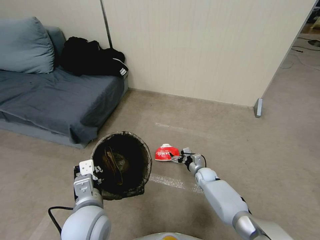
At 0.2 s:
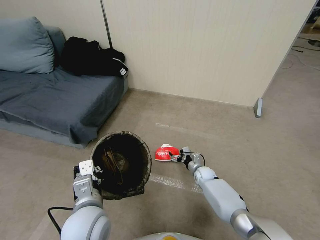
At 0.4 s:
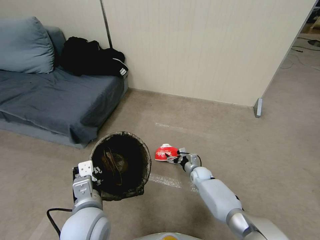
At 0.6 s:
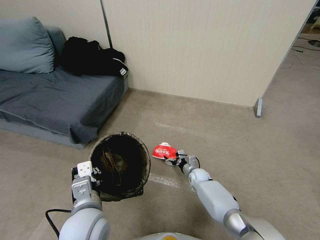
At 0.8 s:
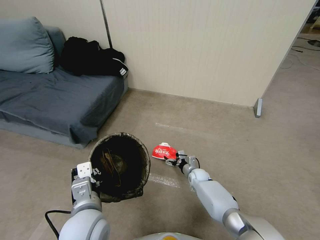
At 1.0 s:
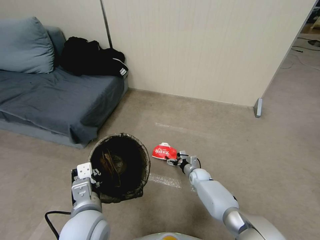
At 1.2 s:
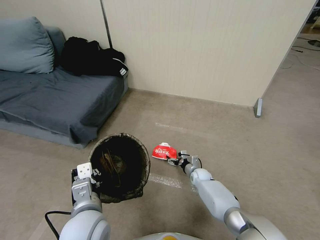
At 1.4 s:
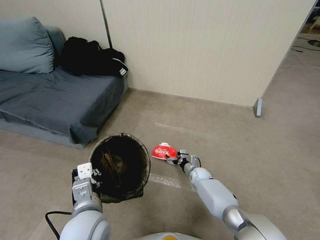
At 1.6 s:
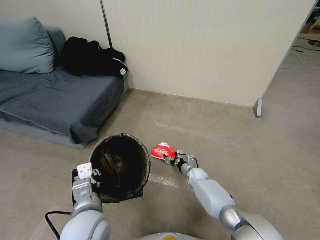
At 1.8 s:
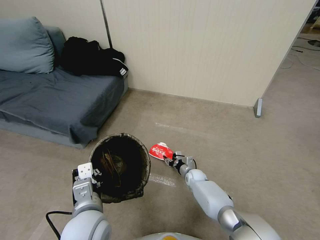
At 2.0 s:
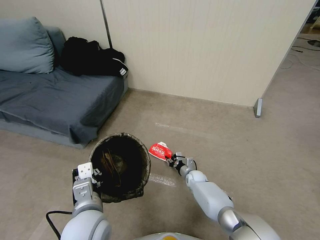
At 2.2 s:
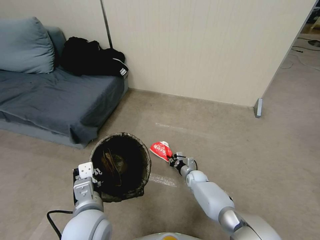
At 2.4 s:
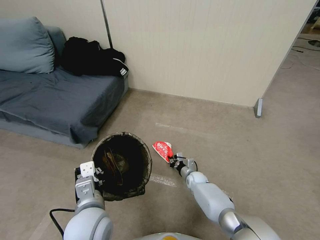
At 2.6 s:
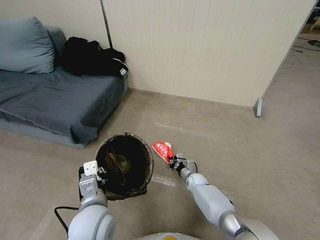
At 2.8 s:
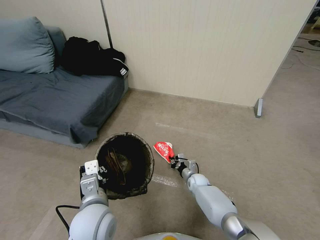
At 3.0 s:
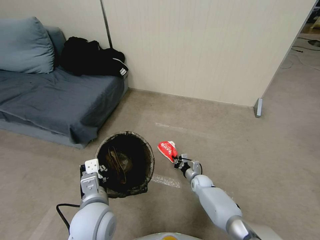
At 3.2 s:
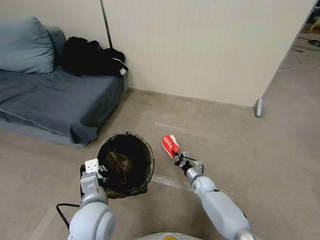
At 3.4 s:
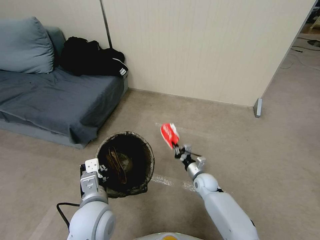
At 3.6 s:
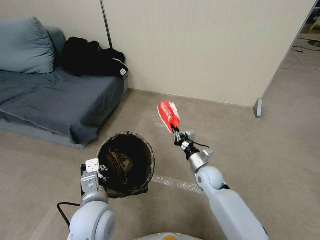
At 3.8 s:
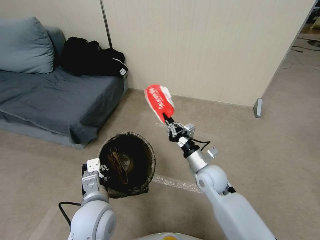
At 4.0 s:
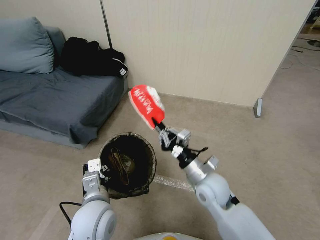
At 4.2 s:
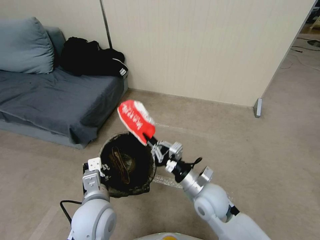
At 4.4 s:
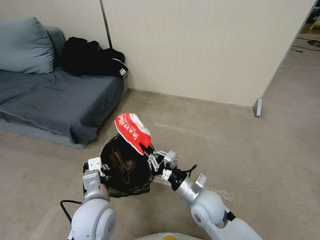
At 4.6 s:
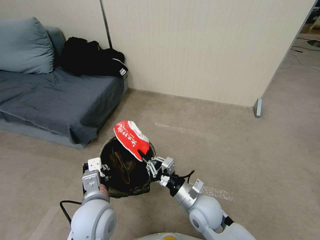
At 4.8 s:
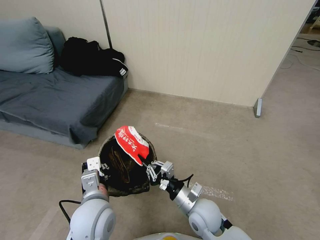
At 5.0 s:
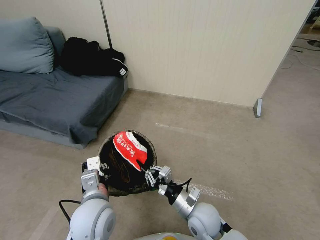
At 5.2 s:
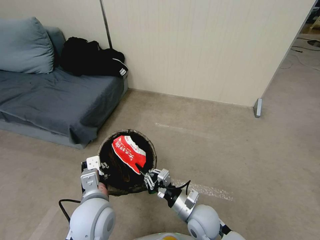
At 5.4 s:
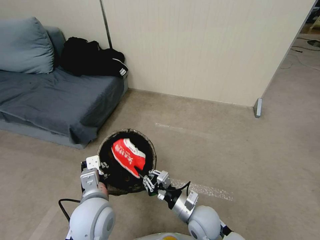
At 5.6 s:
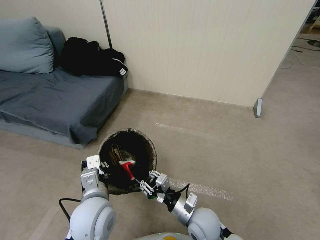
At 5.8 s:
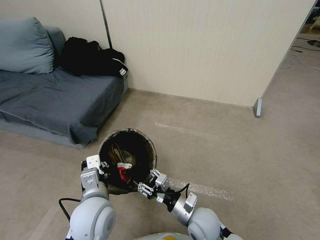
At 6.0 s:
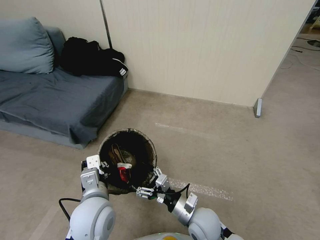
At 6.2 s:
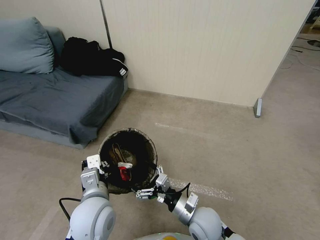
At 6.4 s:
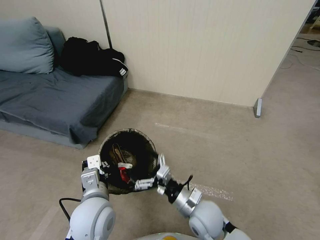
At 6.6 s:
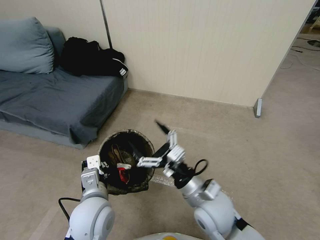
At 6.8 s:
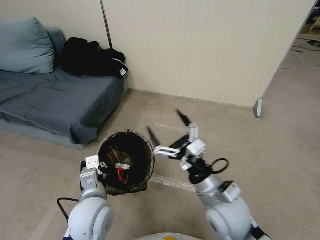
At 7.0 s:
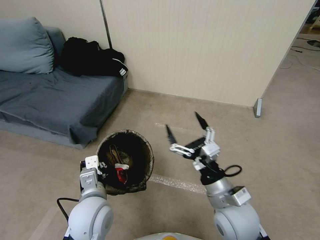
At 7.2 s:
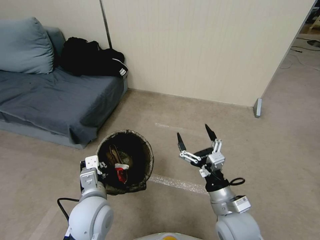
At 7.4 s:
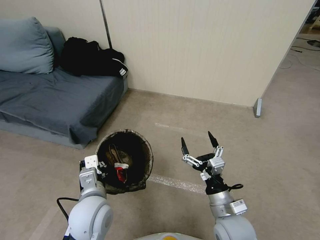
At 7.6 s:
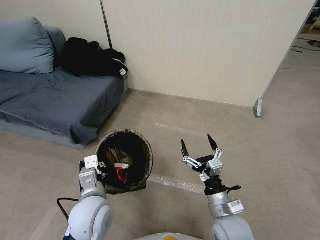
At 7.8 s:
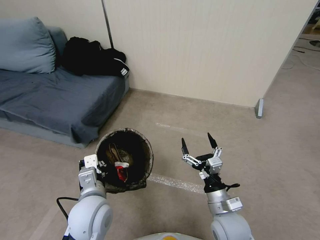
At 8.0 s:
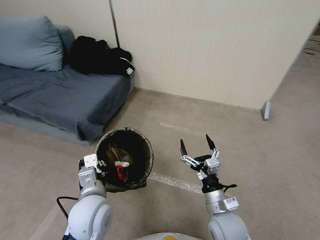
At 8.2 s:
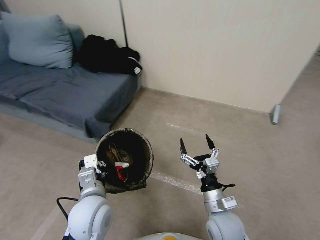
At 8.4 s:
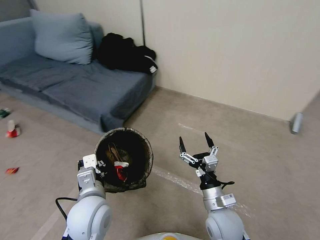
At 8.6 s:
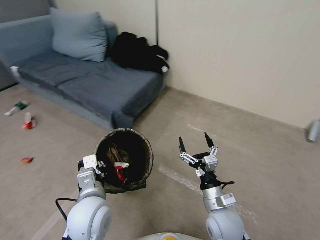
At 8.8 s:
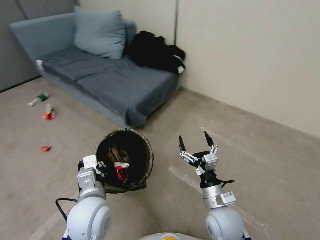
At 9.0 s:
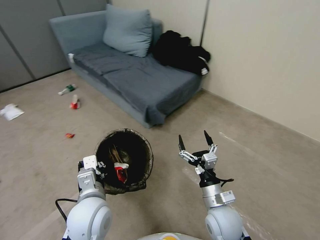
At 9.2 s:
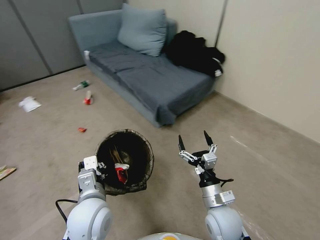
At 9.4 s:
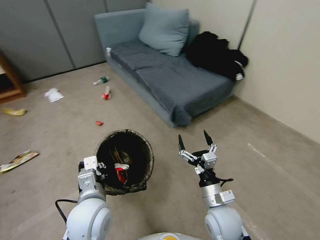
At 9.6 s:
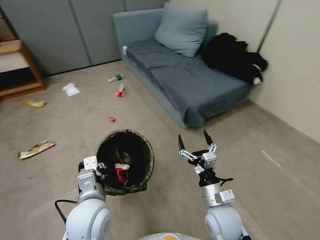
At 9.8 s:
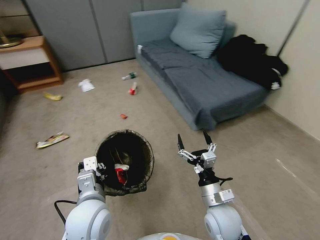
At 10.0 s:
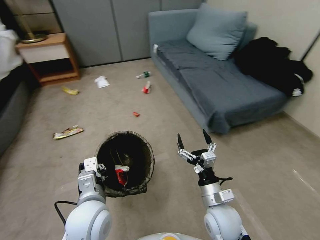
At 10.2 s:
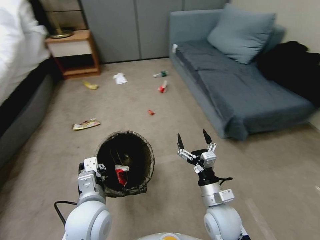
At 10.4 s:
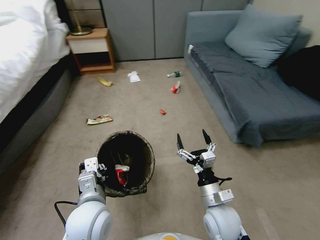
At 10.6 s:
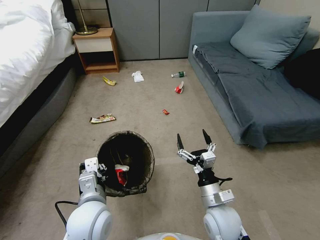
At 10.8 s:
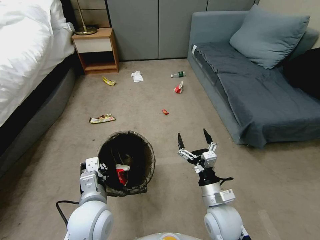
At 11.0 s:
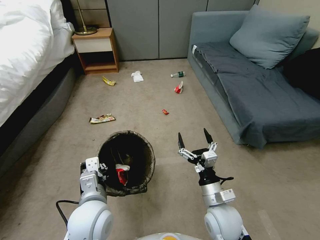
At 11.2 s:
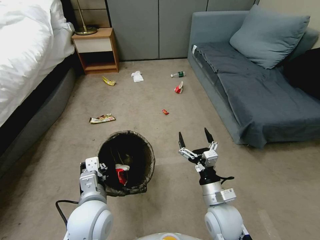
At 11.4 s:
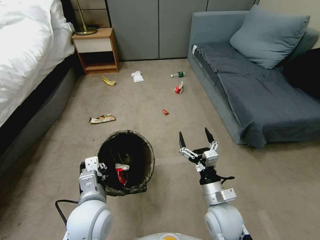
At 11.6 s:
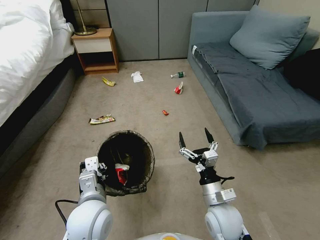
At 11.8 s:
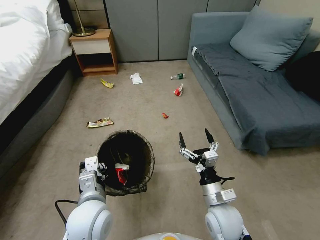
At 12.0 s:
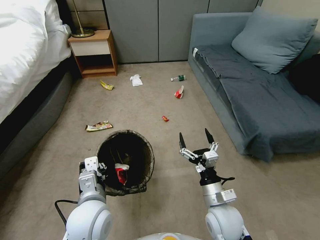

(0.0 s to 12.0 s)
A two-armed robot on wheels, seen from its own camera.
Task of the whole recording: Pick up the trash bin, then pick up the garbage from the floor and place it into the trash bin.
0.0 s - 1.6 s: The grippers move only a little.
1.6 s - 3.0 s: The right gripper closes.
3.0 s - 4.4 s: The right gripper is displaced upward and backward by roughly 30 cm.
4.4 s - 6.0 s: The right gripper is displaced downward by roughly 5 cm, and opens its fingers.
6.0 s - 7.6 s: The right gripper heads to the right, covering about 5 cm, and travels upward and back again, some 15 cm each way.
10.4 s - 12.0 s: Both grippers stay put.

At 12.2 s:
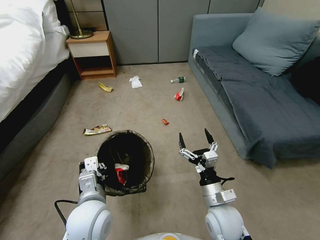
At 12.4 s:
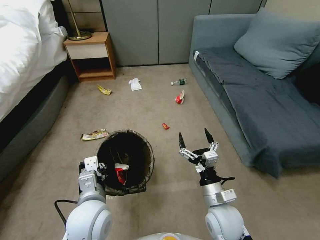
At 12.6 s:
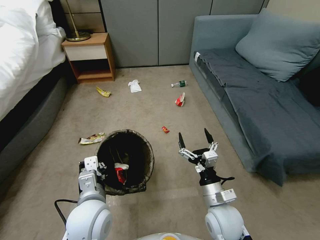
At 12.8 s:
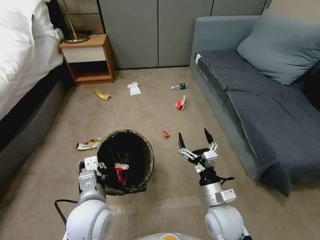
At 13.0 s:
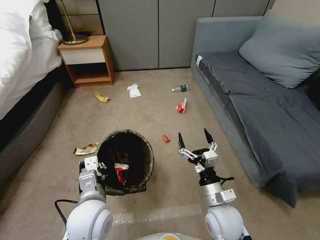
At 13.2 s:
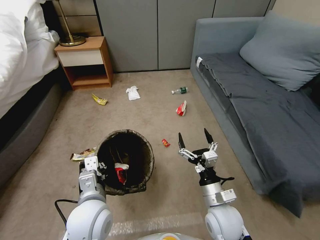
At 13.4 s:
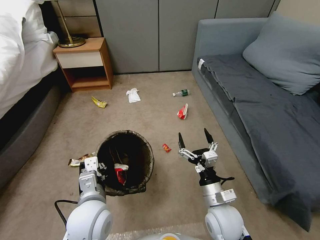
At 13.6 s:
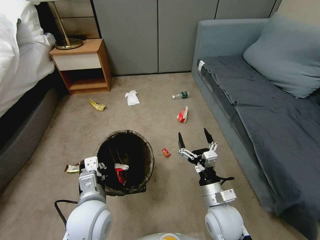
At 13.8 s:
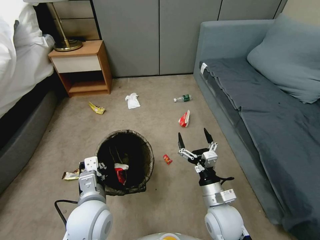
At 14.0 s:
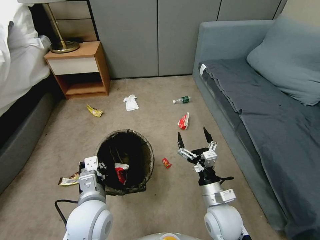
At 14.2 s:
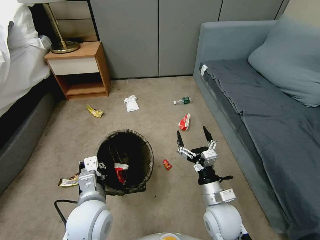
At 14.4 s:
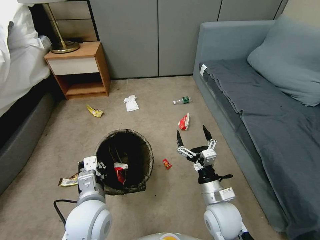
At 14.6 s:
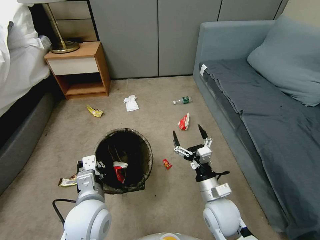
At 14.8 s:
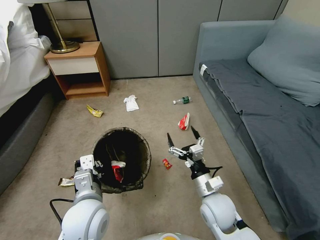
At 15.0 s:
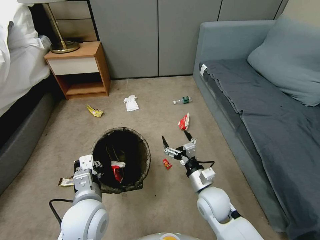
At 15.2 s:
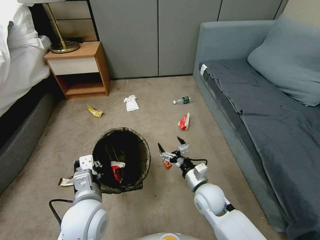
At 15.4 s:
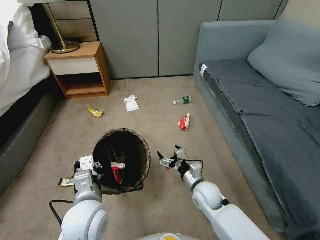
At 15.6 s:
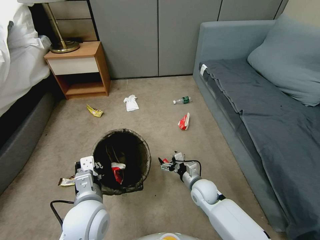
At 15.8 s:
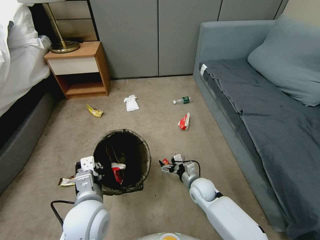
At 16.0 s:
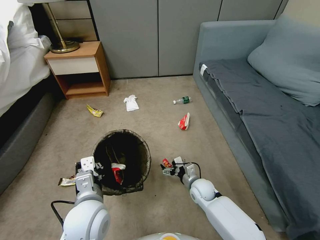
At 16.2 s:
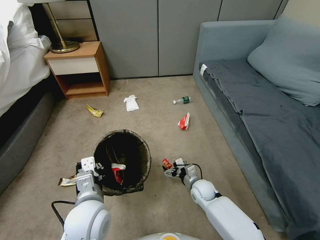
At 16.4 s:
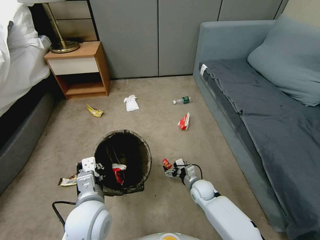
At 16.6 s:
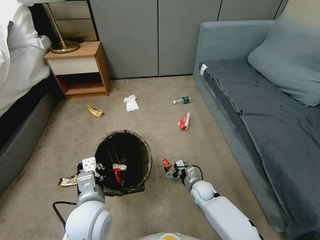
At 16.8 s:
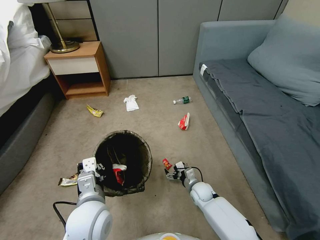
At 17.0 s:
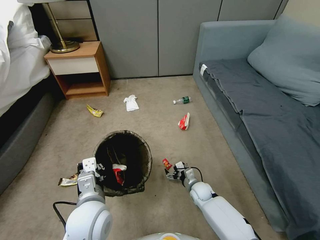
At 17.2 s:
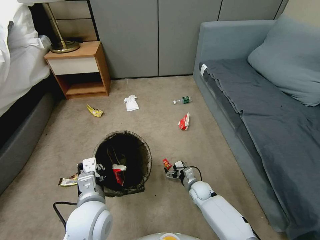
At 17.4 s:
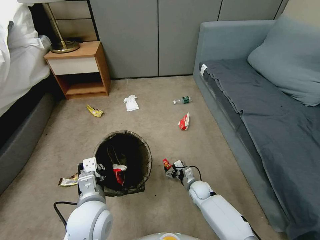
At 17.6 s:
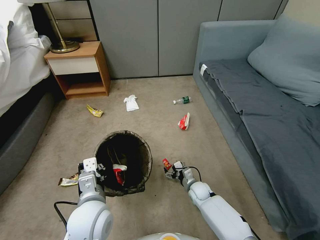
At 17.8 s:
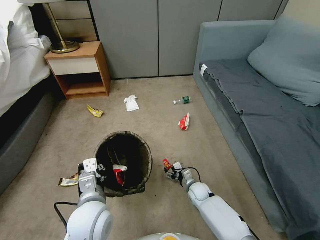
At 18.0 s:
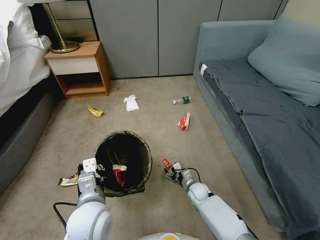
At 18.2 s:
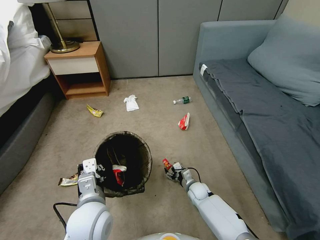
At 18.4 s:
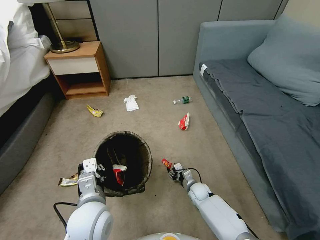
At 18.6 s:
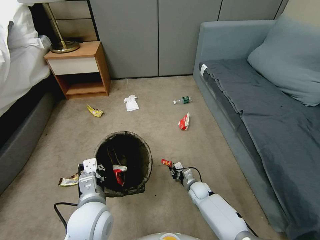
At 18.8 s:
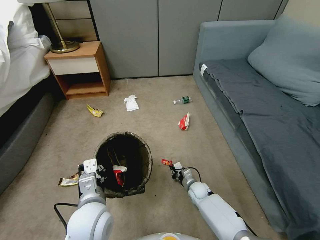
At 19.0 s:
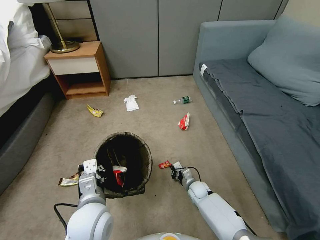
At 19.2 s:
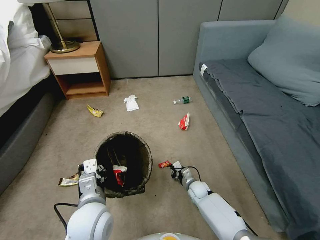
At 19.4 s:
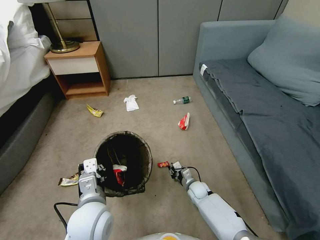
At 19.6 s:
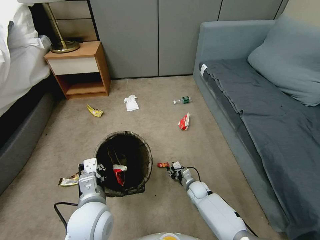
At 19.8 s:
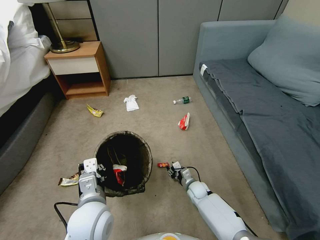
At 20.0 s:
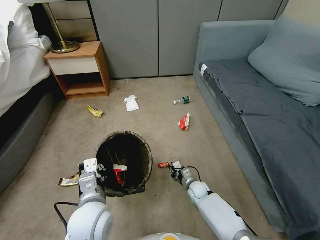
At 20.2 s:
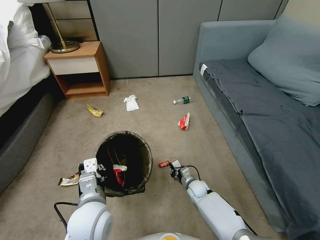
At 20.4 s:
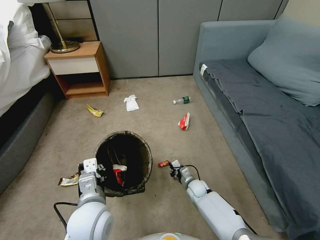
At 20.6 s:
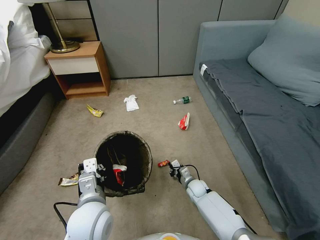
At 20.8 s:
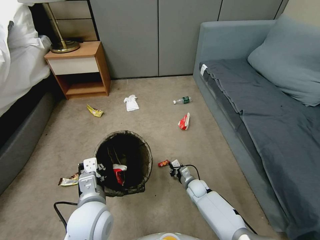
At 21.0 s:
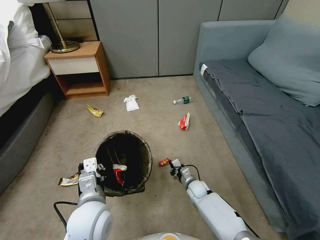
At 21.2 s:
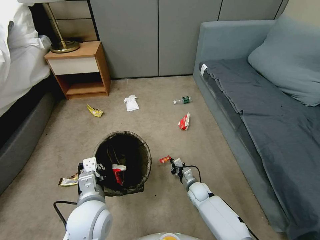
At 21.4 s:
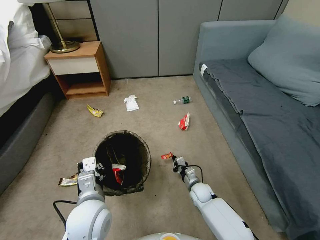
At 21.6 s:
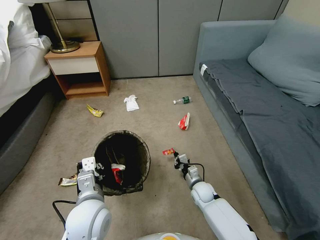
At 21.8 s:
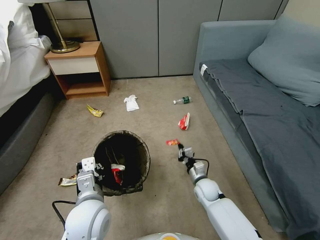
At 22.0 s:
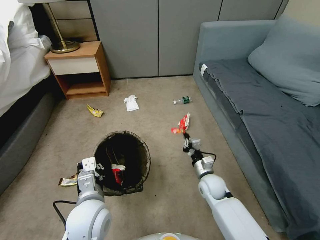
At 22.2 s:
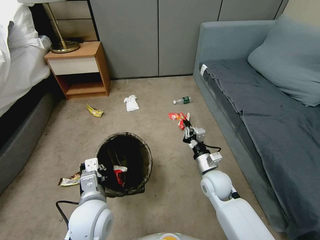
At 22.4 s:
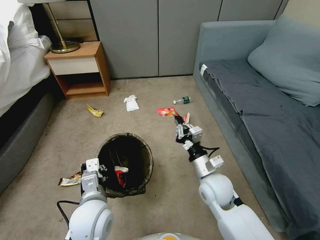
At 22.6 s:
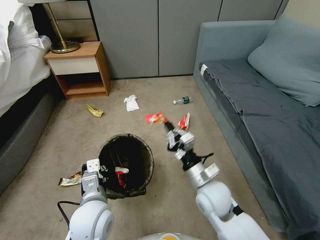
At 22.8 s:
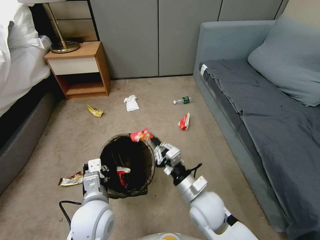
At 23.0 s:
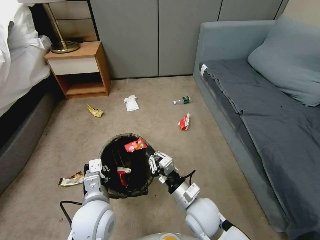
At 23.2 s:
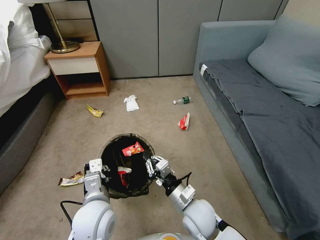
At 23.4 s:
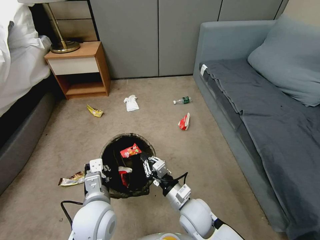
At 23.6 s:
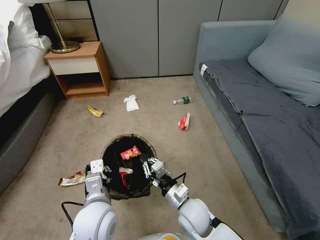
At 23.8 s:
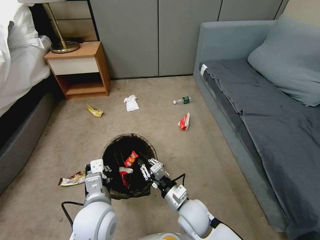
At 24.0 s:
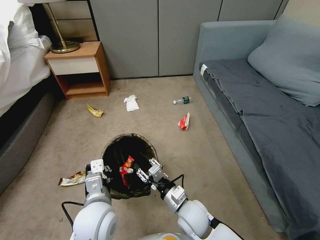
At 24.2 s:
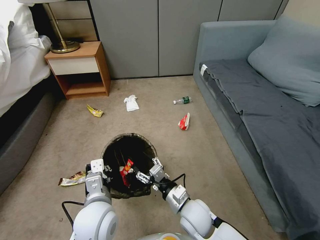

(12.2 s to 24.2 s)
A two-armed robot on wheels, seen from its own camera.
Task of the whole recording: Pick up the trash bin, then pick up the garbage from the floor and place it into the trash bin.
13.8 s - 15.2 s: The right gripper goes roughly 5 cm forward.
15.2 s - 16.6 s: The right gripper is displaced downward and forward by roughly 15 cm.
16.6 s - 18.2 s: There are only small adjustments of the grippers.
18.2 s - 19.8 s: The right gripper closes and opens again.
19.8 s - 21.2 s: The right gripper closes up.
21.2 s - 22.6 s: The right gripper is displaced upward by roughly 25 cm.
22.6 s - 24.2 s: The right gripper is displaced downward by about 5 cm, and opens its fingers.
